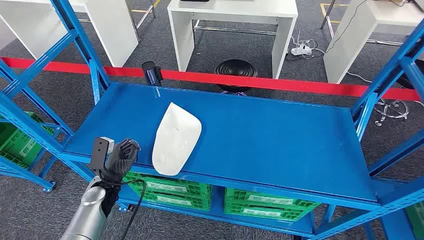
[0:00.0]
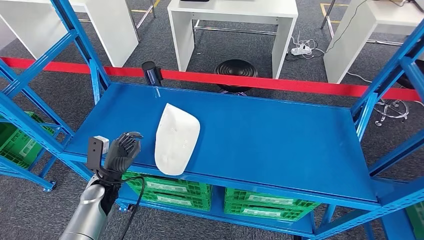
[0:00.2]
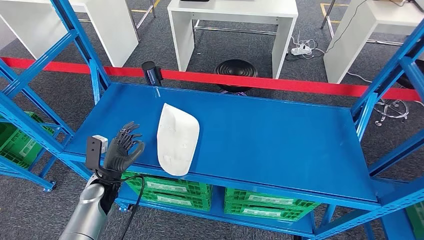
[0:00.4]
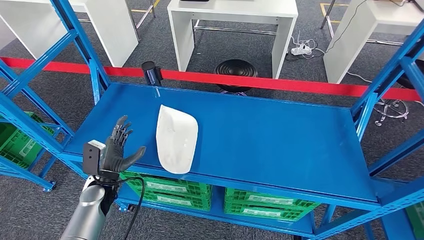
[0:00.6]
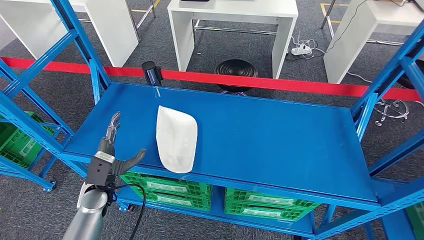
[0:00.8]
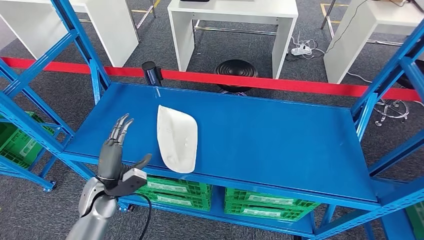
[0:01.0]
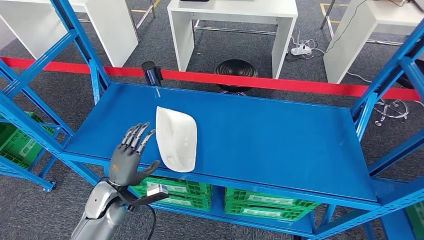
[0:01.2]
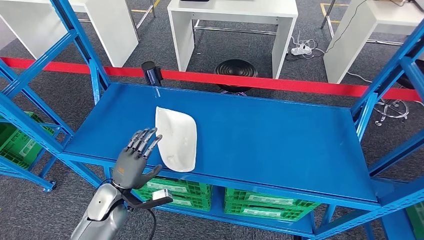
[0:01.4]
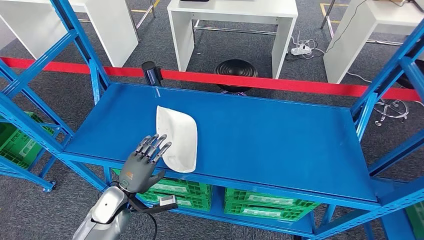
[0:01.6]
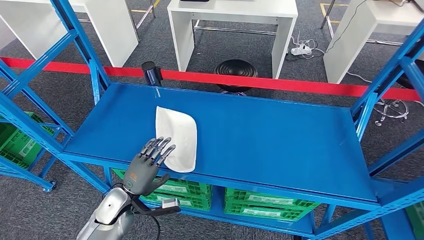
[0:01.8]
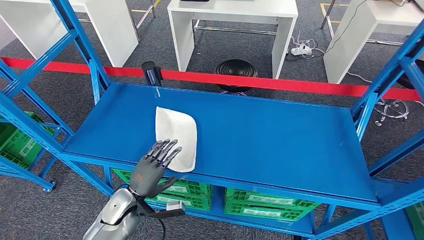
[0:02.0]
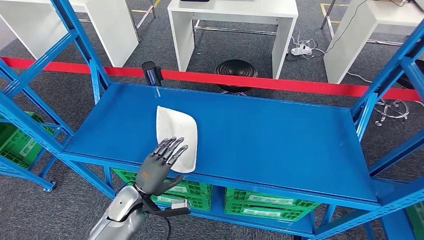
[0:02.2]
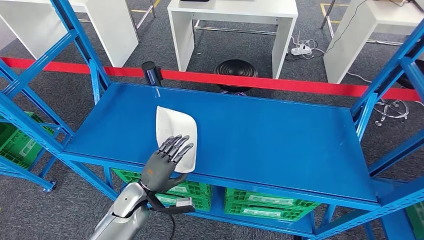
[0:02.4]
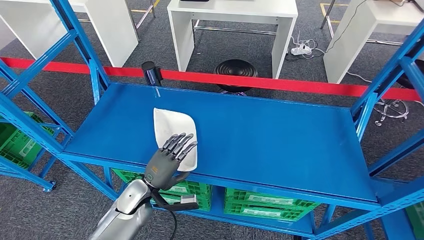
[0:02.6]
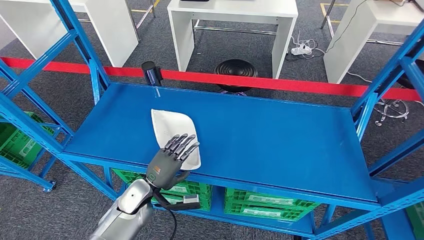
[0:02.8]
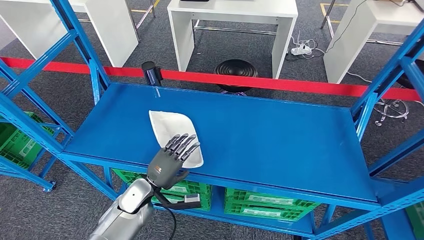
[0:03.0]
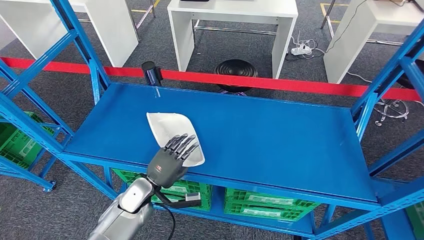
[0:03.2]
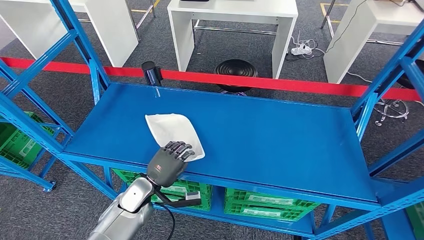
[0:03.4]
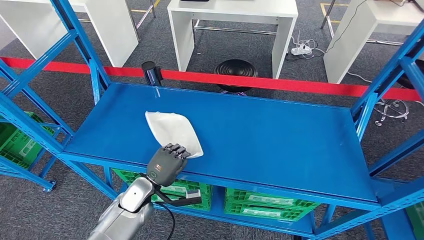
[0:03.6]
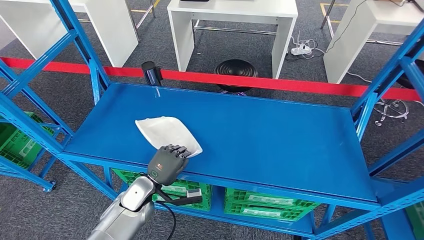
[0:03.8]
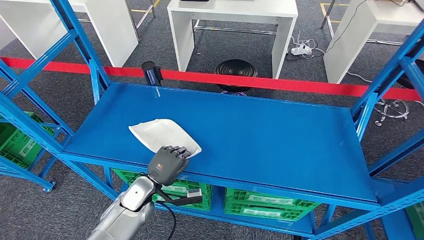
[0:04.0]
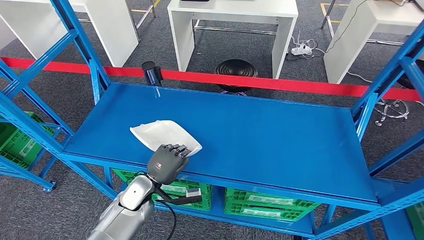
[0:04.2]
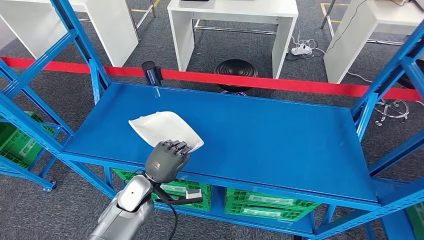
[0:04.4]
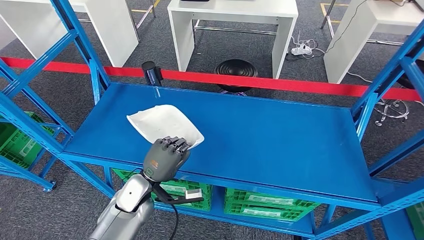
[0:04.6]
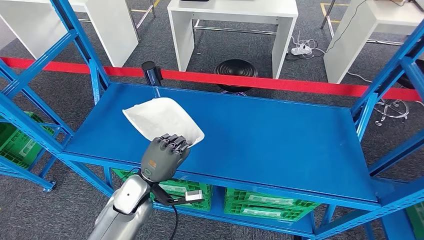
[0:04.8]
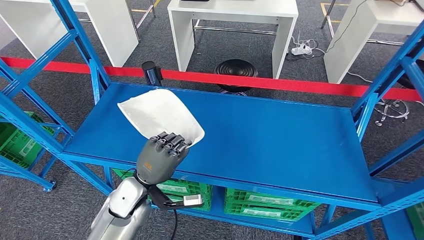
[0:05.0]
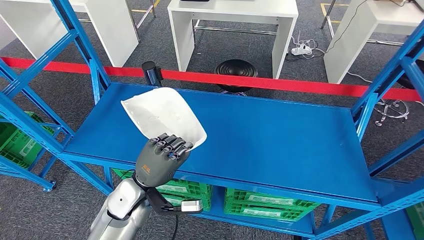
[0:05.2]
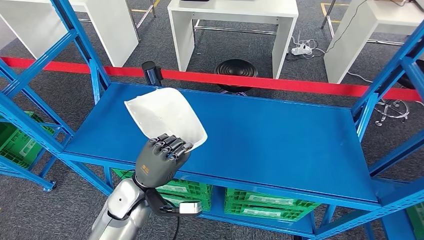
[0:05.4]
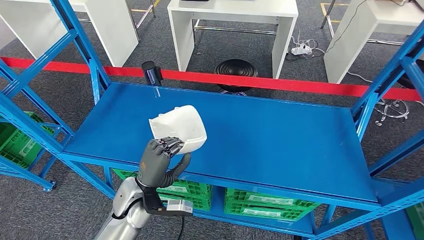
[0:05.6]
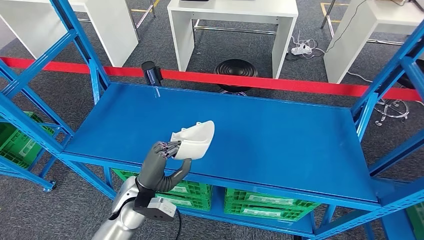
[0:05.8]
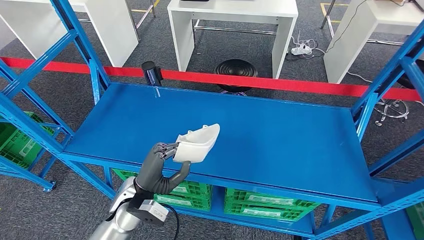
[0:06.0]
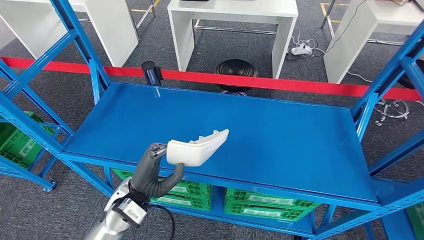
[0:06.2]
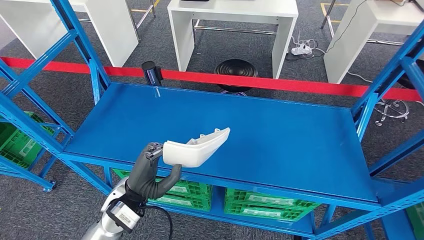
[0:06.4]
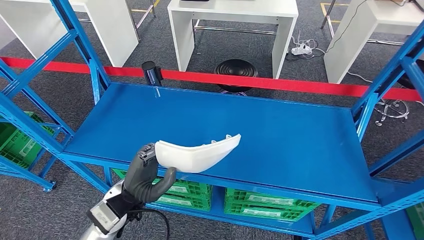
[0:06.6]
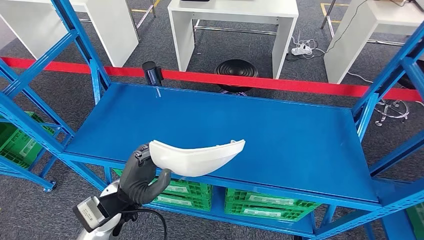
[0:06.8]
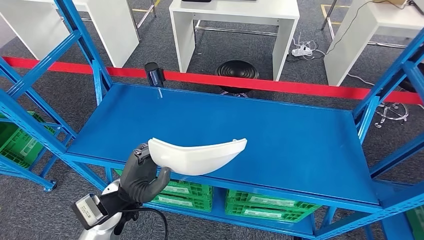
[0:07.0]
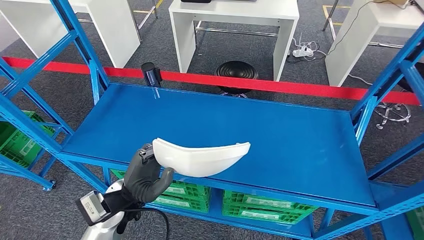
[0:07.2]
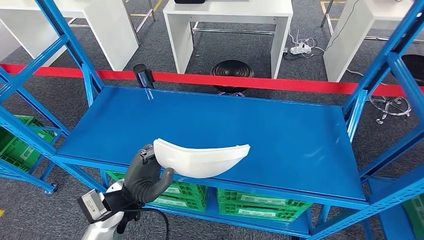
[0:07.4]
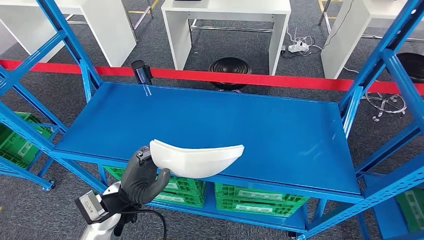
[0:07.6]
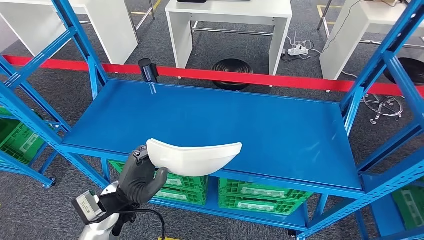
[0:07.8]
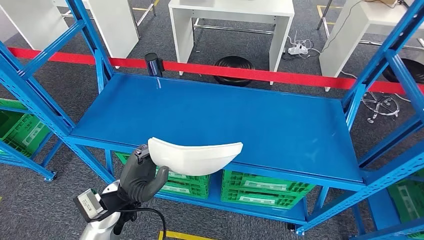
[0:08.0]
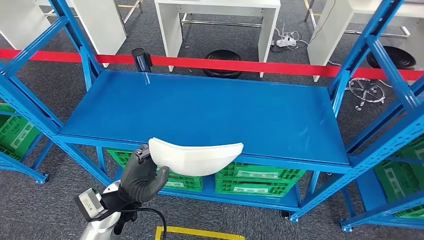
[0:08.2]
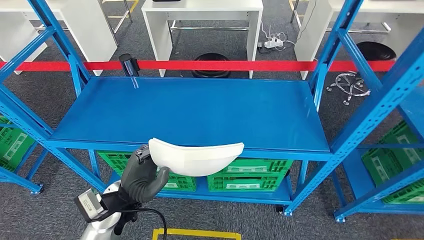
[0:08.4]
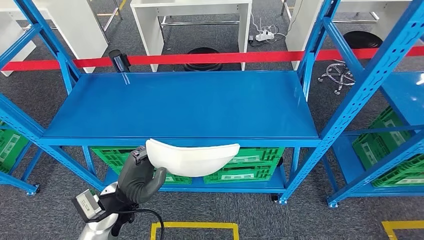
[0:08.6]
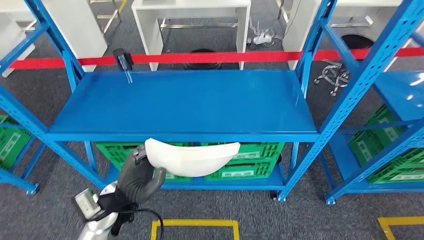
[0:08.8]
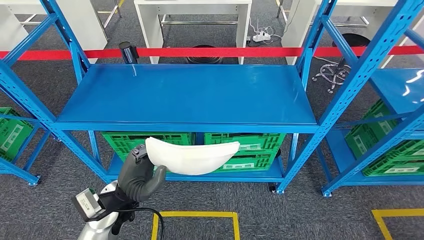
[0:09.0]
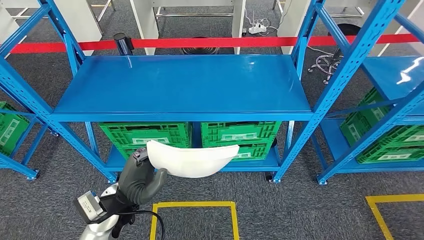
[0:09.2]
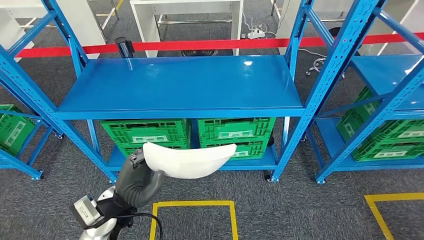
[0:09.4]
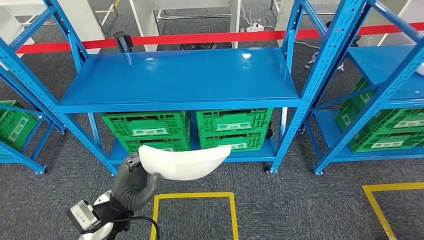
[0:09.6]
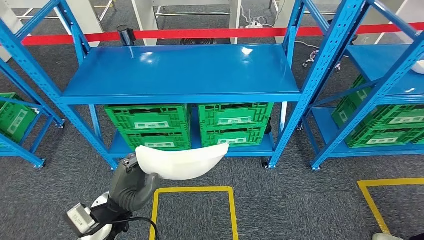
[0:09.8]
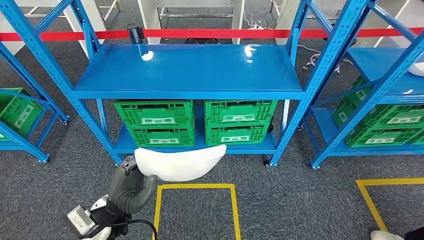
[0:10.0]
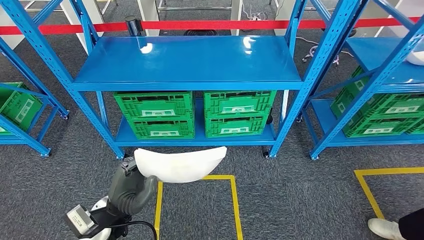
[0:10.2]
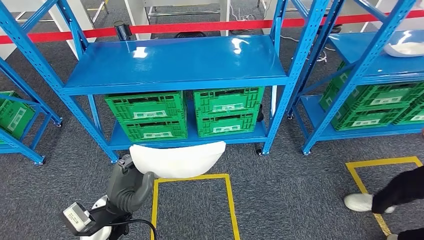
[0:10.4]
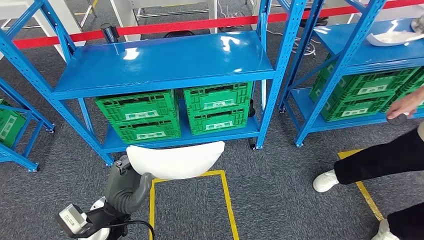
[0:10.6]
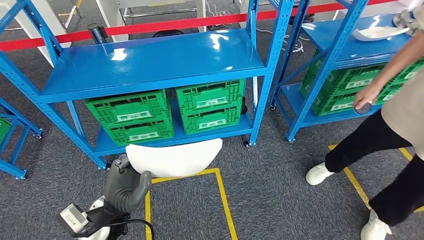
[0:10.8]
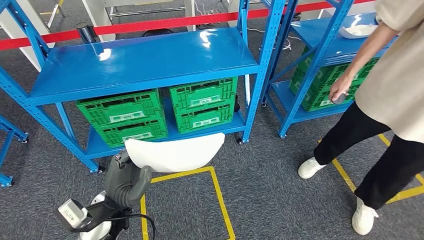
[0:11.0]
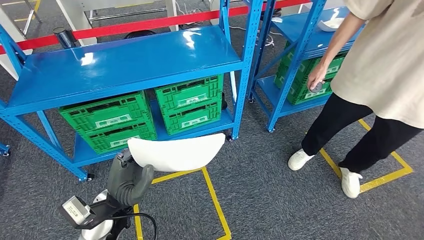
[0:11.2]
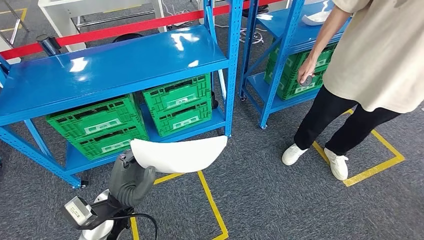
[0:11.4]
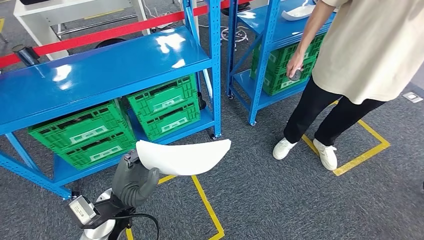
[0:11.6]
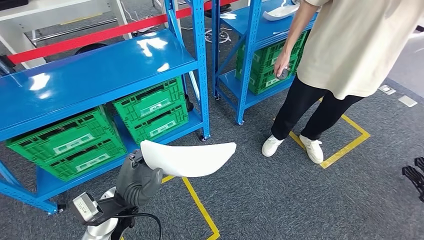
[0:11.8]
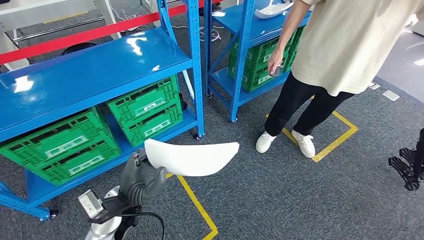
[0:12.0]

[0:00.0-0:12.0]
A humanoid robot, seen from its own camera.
Step, 0:00.0 to 0:05.4: Pick up the small component from the shelf.
0:01.6 to 0:03.0: The left hand shifts some 5 cm to the right.
0:03.0 to 0:04.4: The hands stay close to where they were, moving slightly.
0:04.4 to 0:06.0: The left hand heads upward, covering about 5 cm.

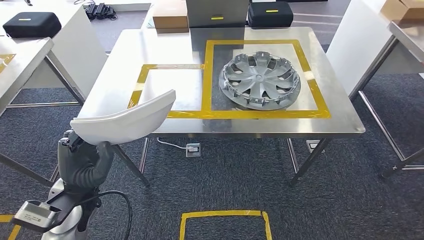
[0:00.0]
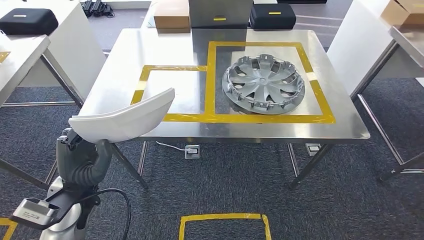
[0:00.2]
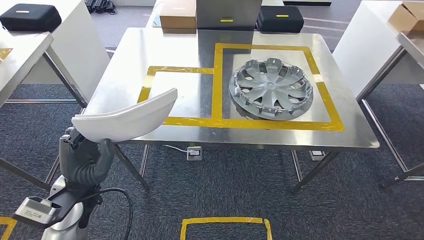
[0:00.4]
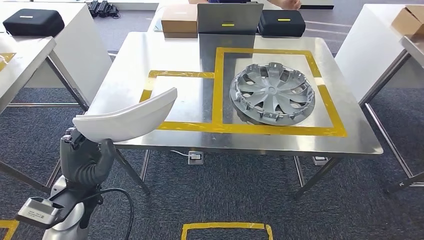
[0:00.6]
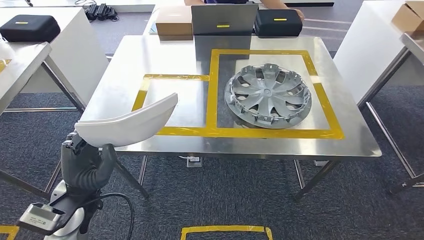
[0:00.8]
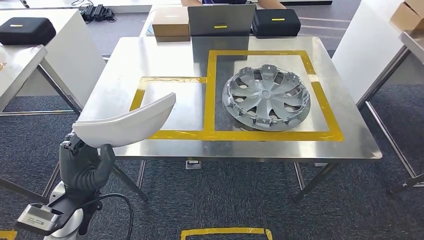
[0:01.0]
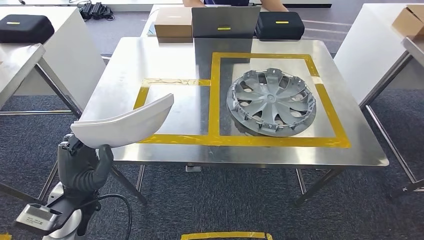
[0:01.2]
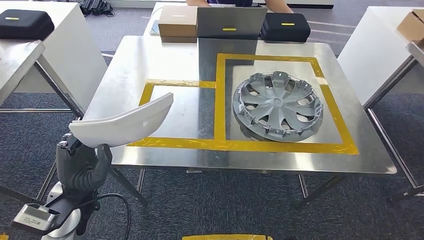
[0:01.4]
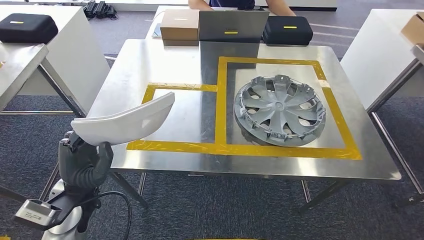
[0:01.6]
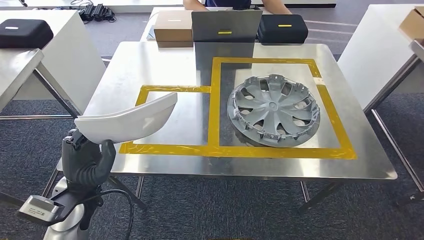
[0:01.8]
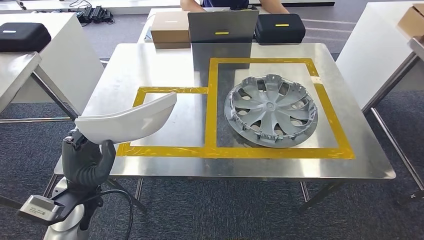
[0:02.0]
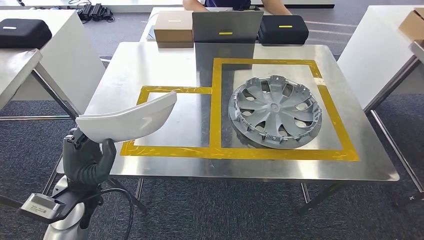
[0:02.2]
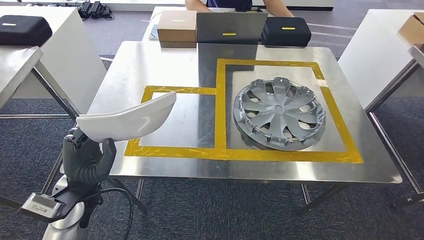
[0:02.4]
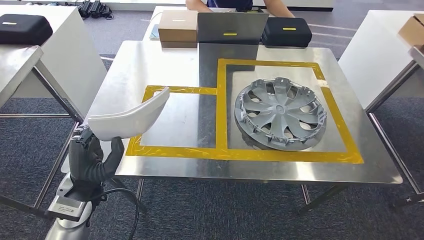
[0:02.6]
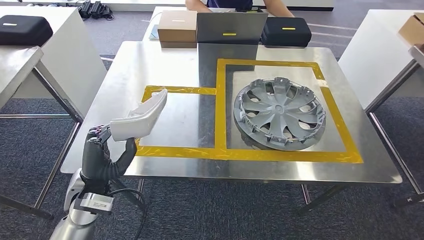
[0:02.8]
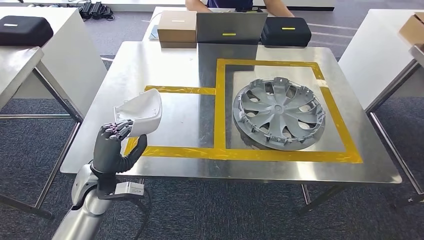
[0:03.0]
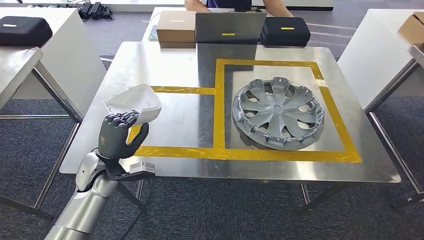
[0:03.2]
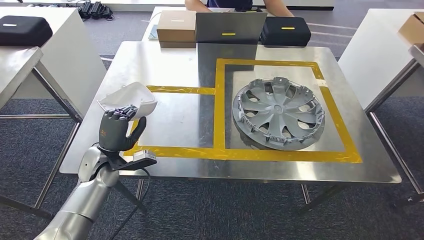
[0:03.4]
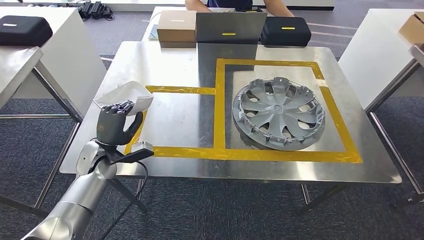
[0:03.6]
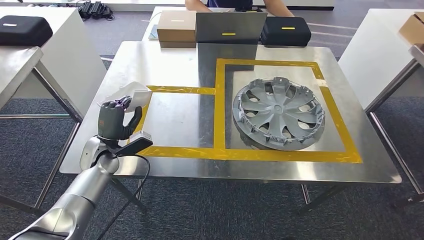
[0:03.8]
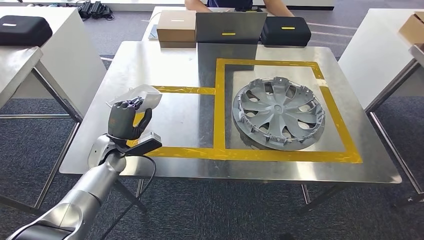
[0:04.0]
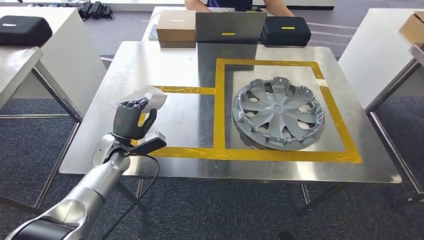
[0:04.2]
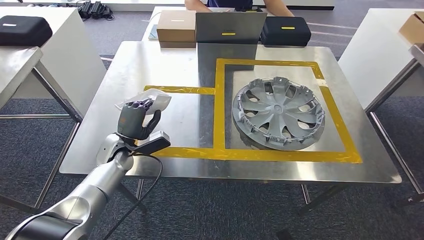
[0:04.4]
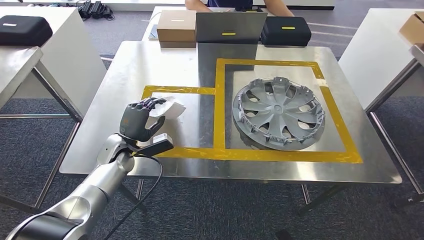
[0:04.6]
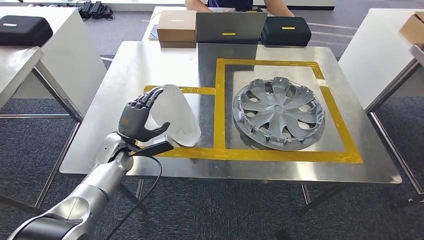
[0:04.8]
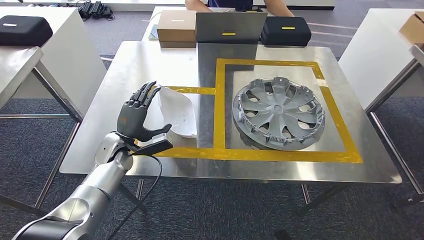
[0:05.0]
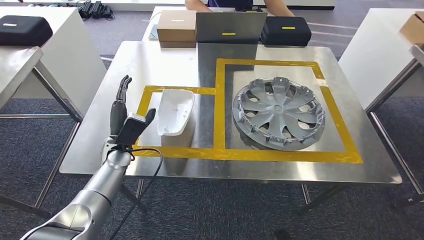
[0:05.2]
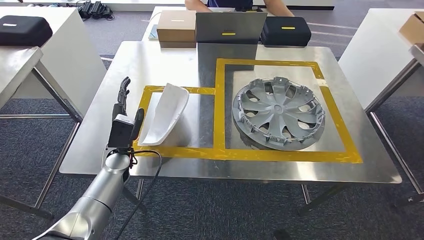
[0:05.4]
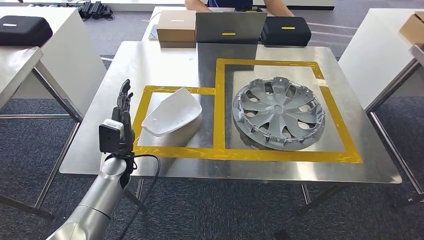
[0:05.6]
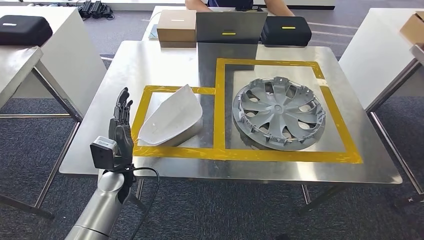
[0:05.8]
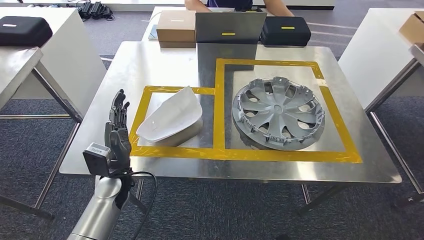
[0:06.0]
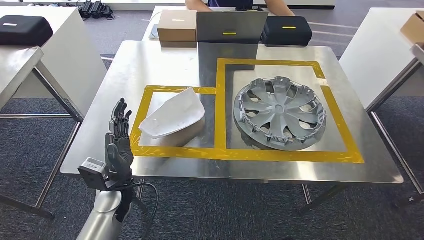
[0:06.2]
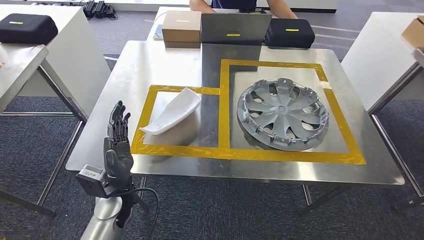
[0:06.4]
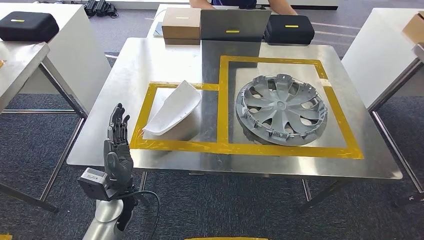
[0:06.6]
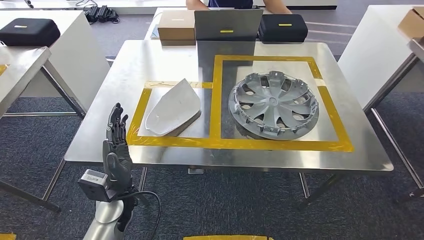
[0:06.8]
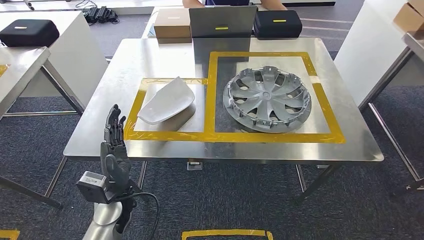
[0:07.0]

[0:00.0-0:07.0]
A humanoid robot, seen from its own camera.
Step, 0:02.0 to 0:05.8: Insert the small component into the corresponding slot on the workbench.
0:02.8 to 0:04.2: The left hand shifts about 10 cm forward and downward.
